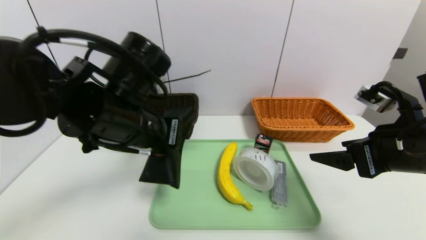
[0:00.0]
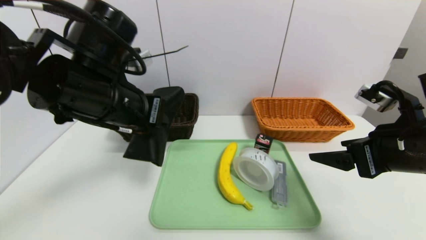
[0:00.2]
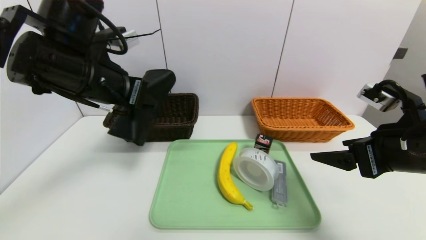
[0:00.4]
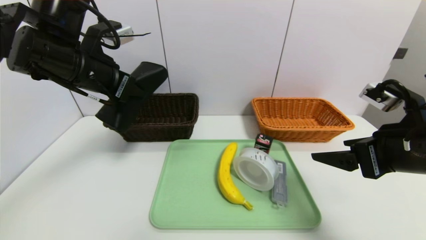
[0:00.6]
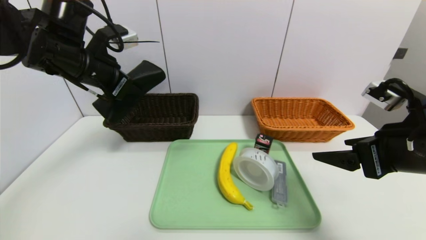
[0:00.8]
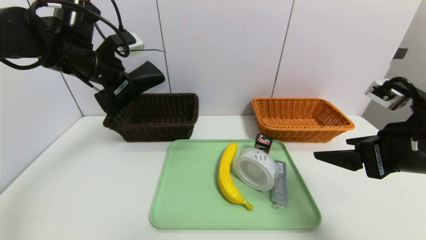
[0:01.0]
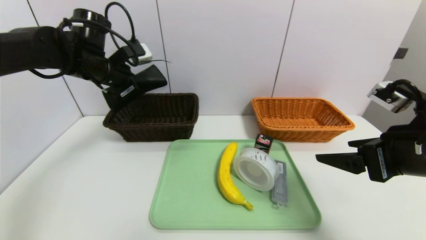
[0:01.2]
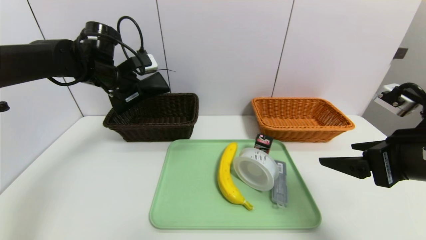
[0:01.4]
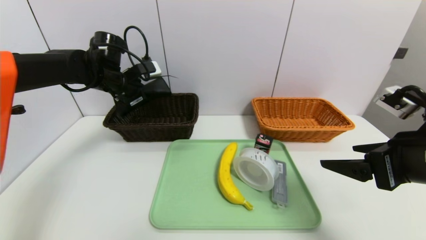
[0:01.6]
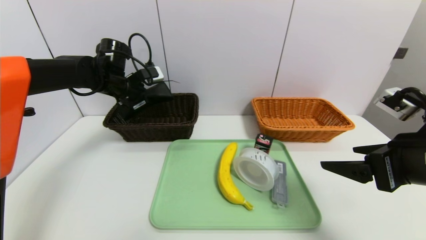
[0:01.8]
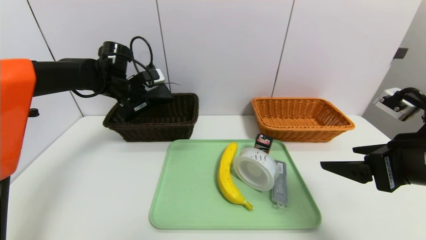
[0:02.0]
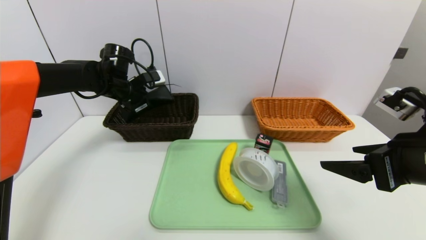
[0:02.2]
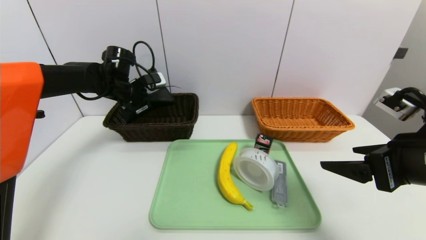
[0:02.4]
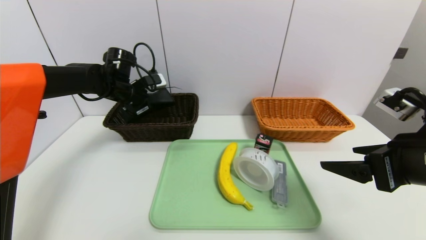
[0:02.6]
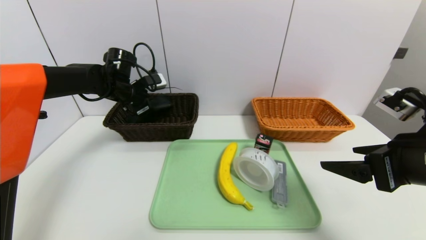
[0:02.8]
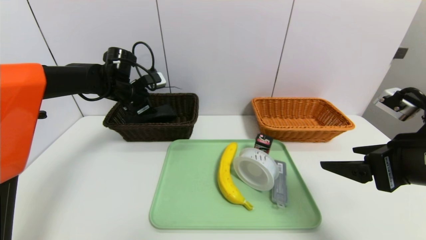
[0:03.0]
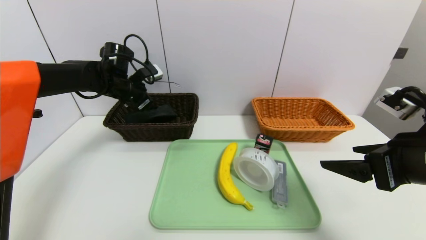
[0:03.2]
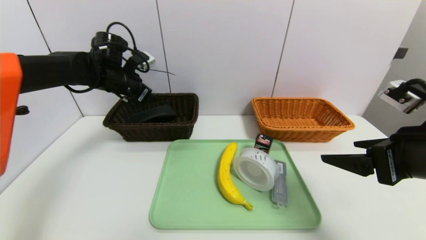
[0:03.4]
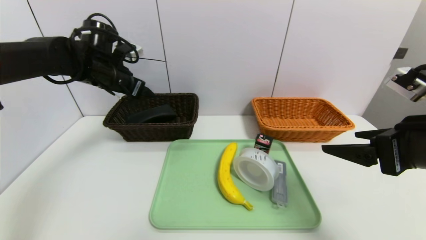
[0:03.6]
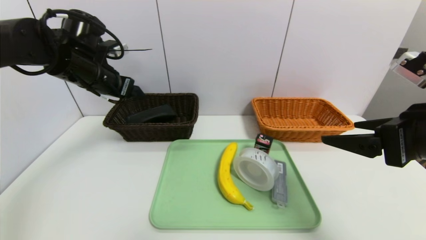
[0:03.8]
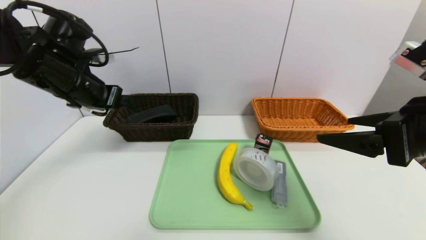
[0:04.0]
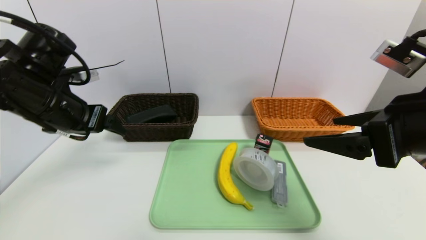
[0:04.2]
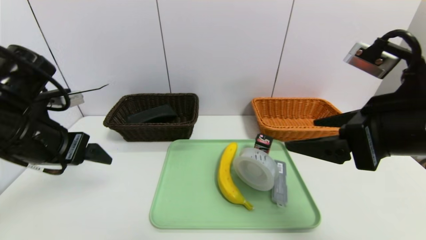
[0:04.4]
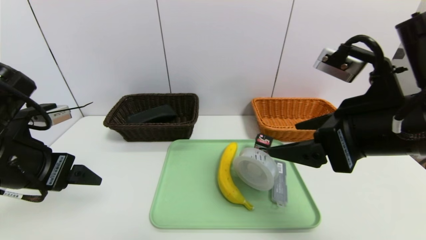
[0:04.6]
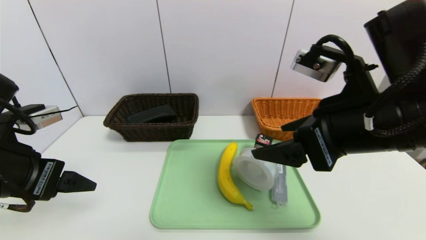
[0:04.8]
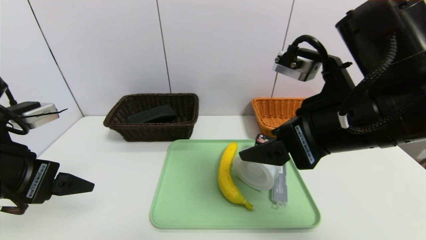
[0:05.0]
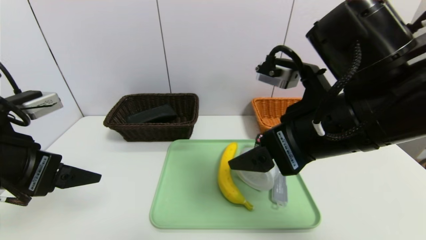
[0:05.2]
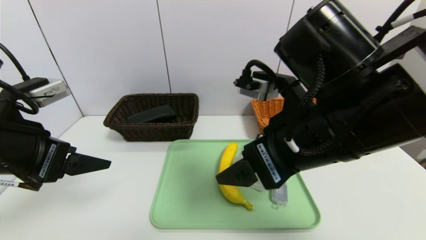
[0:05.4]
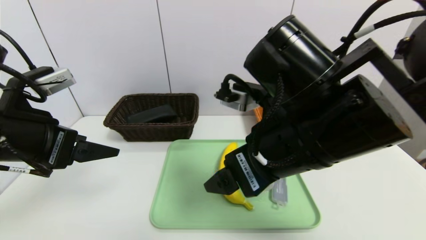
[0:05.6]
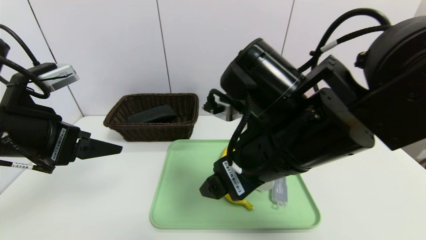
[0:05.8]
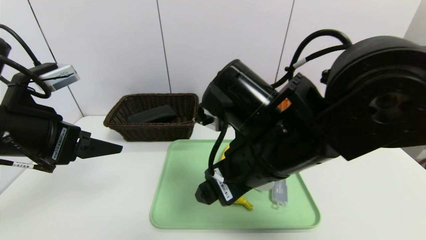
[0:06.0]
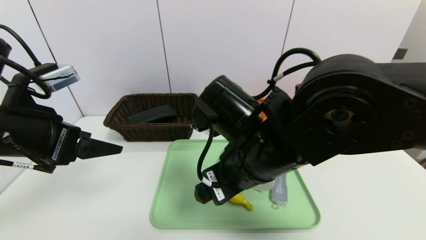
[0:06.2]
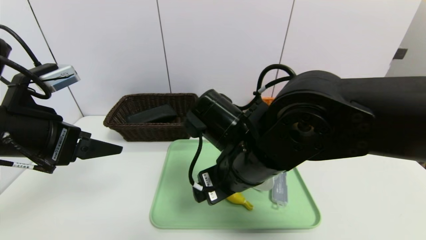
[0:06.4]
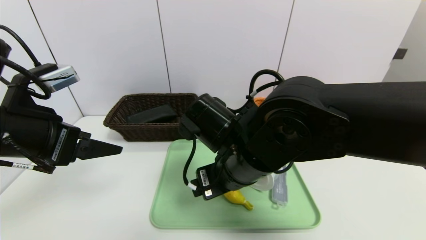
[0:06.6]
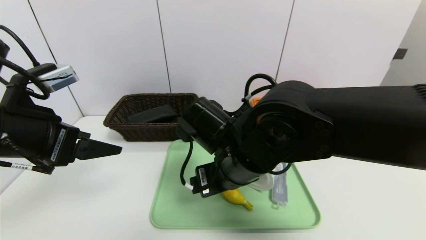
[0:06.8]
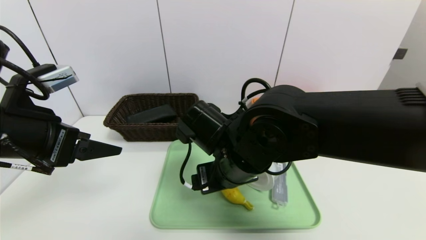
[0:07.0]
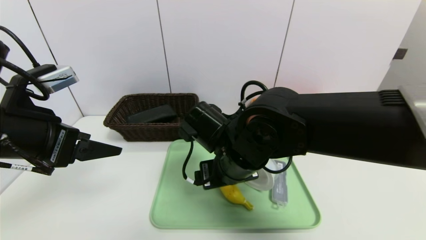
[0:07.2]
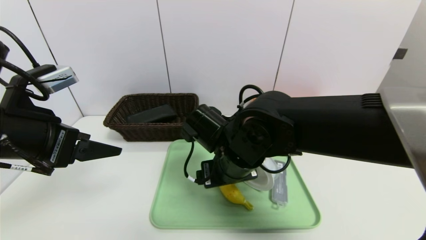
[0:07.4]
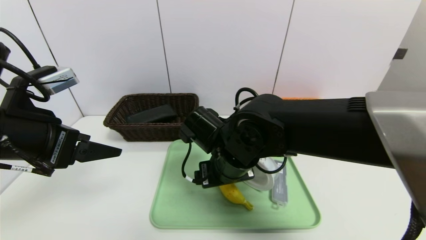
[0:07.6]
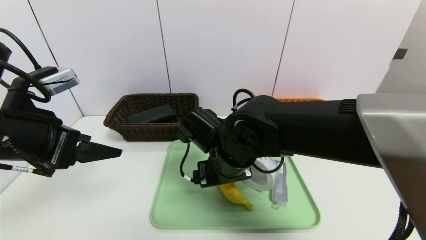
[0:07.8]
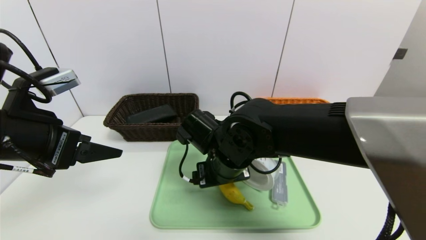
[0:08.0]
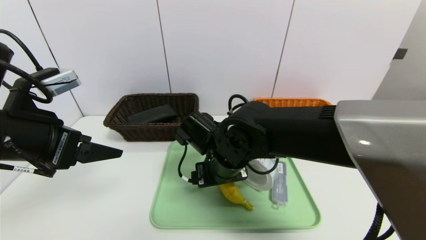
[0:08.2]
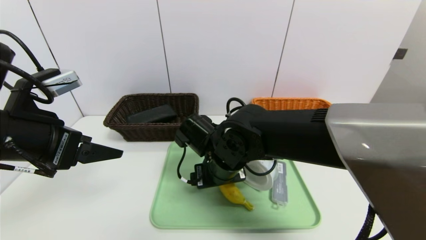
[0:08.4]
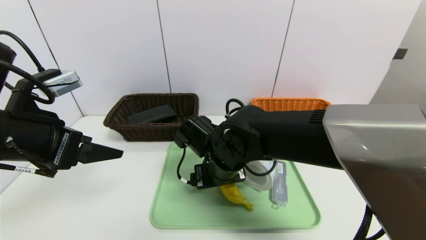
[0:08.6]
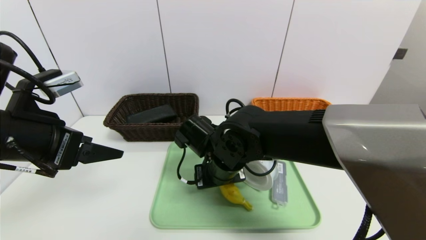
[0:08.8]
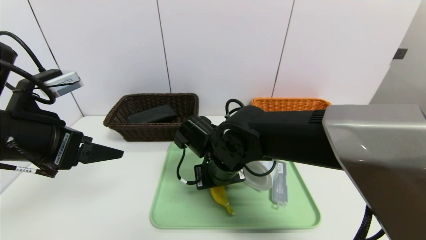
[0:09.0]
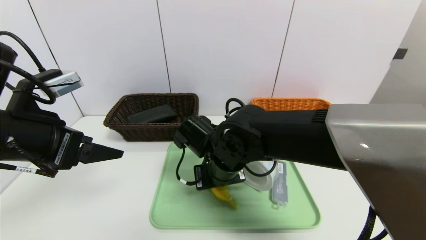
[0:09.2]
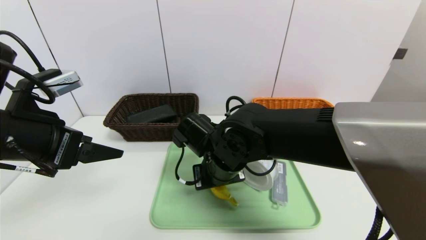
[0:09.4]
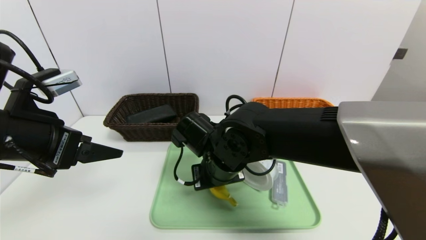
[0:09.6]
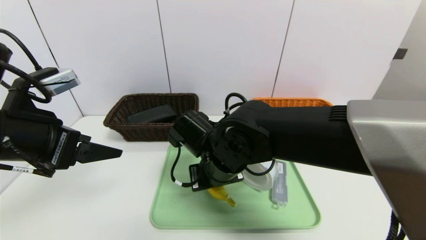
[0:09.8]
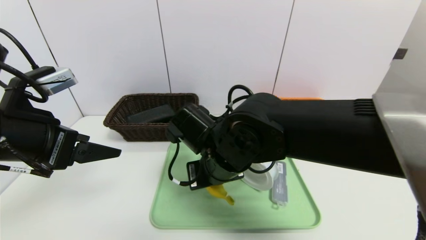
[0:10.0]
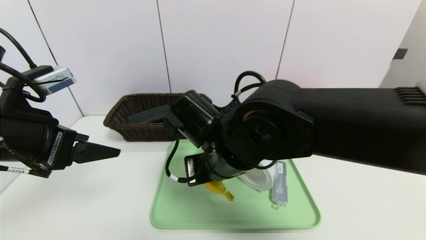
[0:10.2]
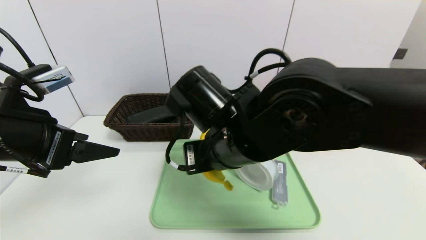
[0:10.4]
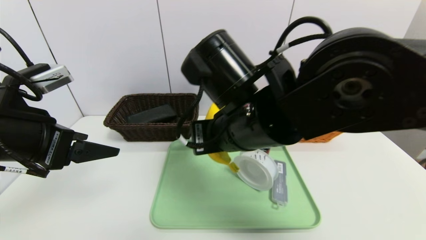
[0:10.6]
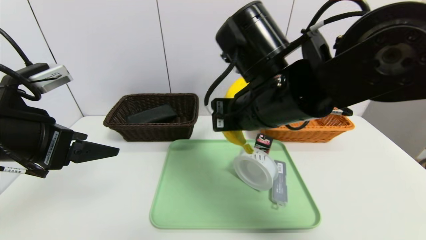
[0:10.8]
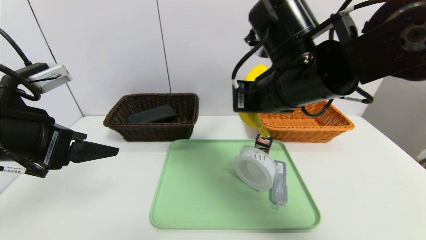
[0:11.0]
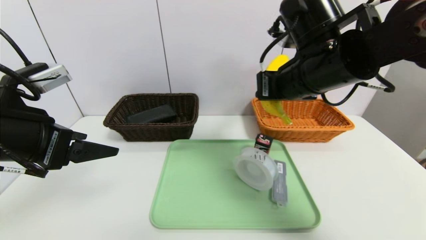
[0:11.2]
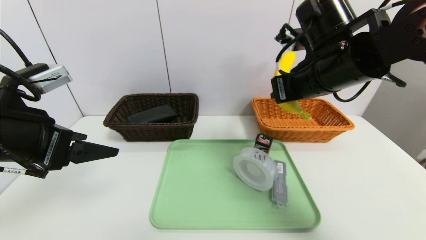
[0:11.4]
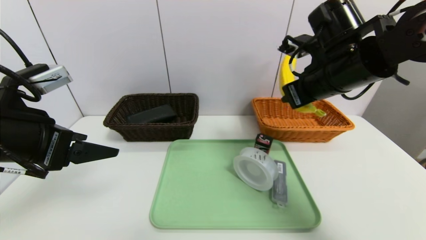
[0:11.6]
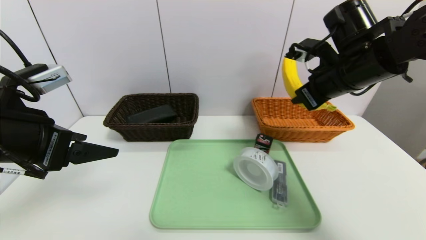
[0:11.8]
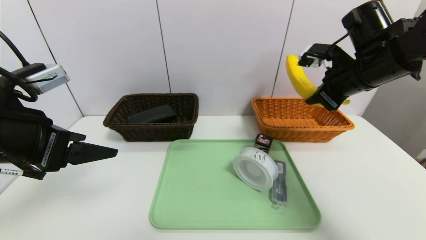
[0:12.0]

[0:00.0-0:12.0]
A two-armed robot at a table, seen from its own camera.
Task of the whole recording: place the food in the right basket with the right gripper, and place the non food items in the left basket with the left gripper.
Step, 0:00.0 to 0:03.2: Grasp the glasses case and put it in the left basket.
0:00.0 to 0:01.6: The left gripper travels forward and to the left by about 25 cm.
0:01.6 to 0:03.0: The left gripper opens.
0:03.0 to 0:04.4: The left gripper is displaced backward by about 25 cm, while the right gripper heads to the left and upward, covering about 10 cm.
0:04.4 to 0:06.0: The right gripper moves to the left, roughly 15 cm.
0:06.0 to 0:07.6: The right gripper moves downward and forward, roughly 10 cm.
0:07.6 to 0:09.0: The right gripper closes its fingers.
0:09.0 to 0:10.4: The right gripper is displaced upward and backward by approximately 10 cm.
0:10.4 to 0:12.0: The right gripper shifts about 25 cm to the right and forward.

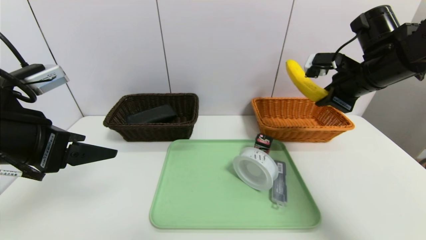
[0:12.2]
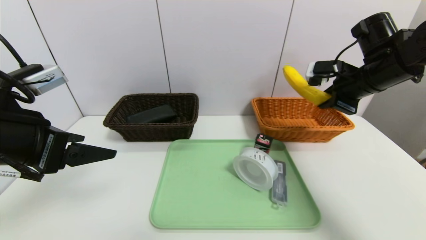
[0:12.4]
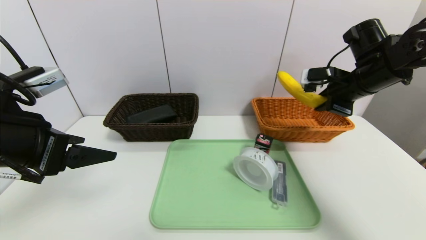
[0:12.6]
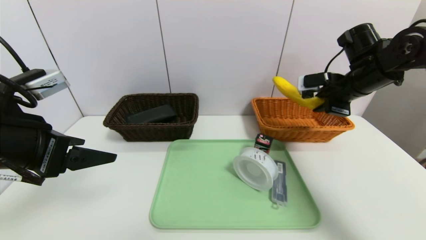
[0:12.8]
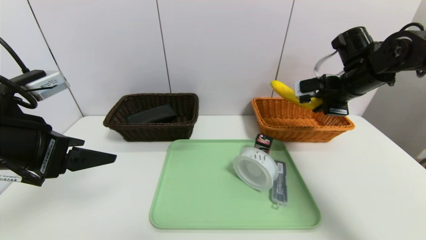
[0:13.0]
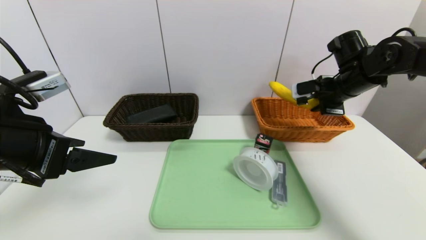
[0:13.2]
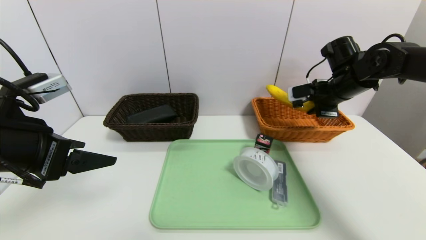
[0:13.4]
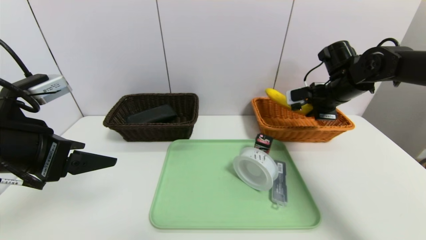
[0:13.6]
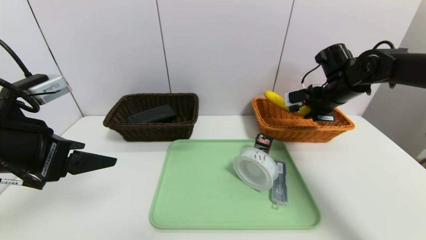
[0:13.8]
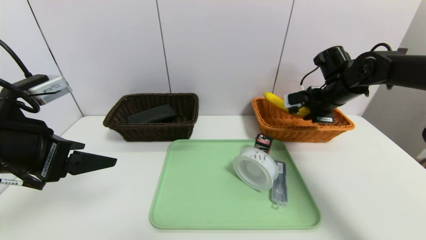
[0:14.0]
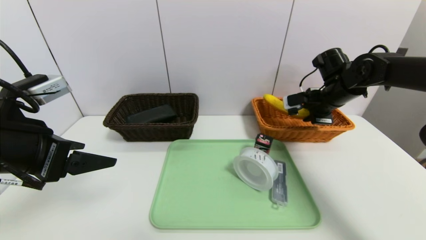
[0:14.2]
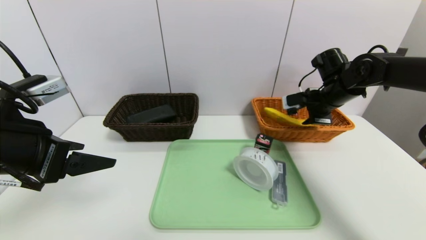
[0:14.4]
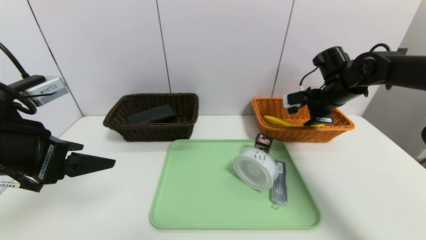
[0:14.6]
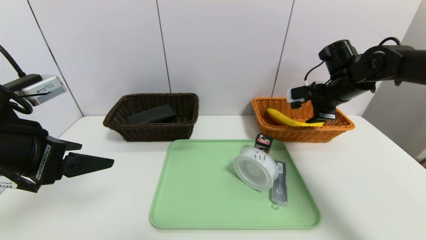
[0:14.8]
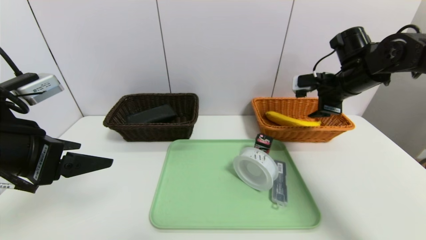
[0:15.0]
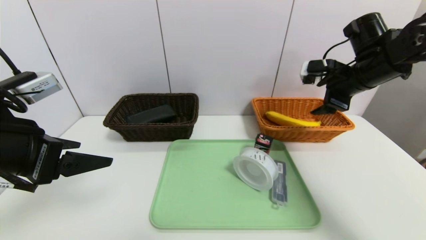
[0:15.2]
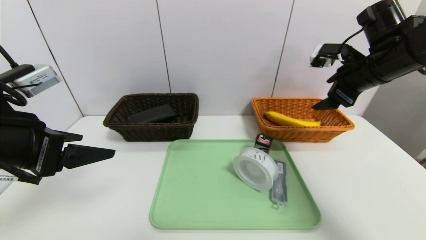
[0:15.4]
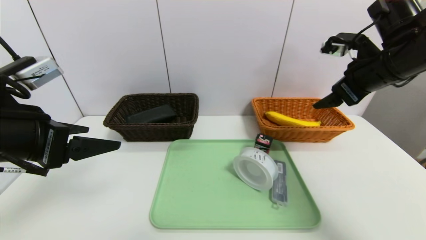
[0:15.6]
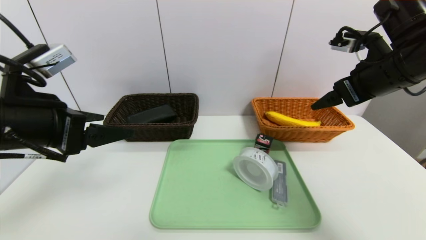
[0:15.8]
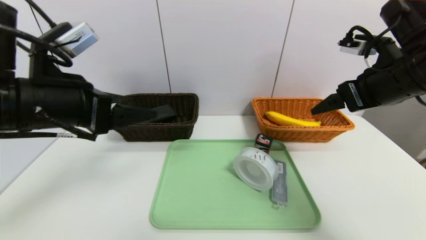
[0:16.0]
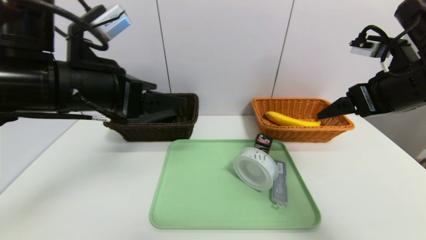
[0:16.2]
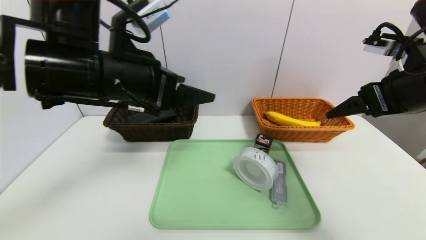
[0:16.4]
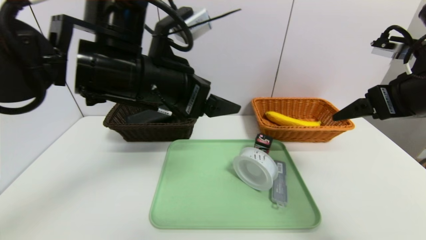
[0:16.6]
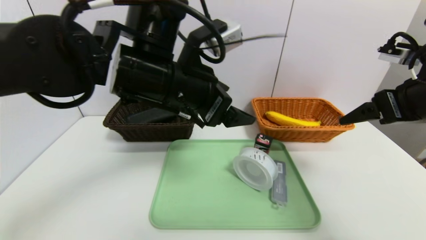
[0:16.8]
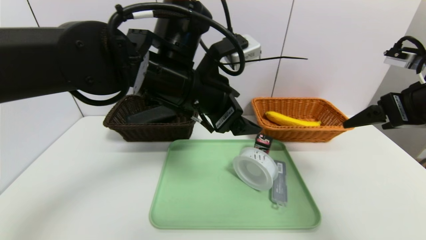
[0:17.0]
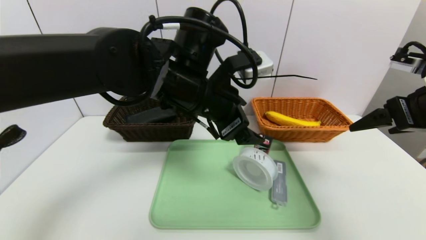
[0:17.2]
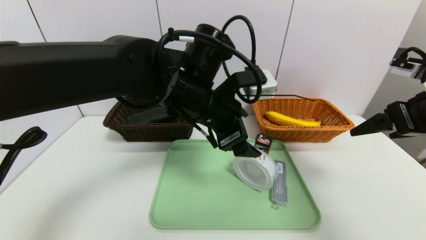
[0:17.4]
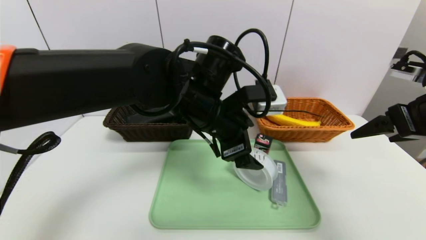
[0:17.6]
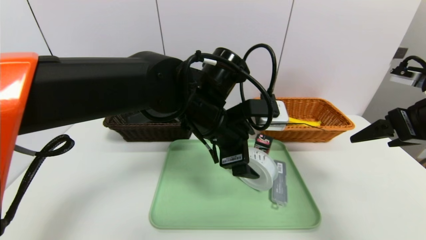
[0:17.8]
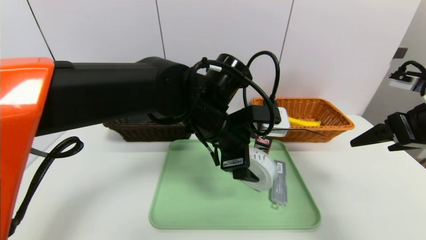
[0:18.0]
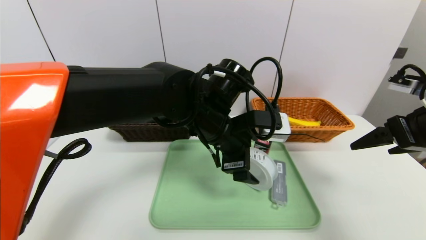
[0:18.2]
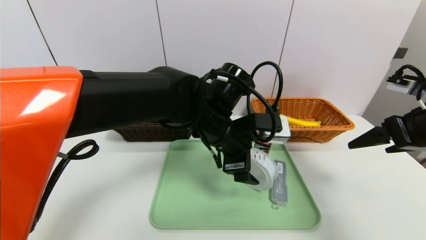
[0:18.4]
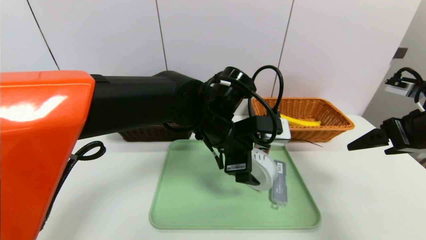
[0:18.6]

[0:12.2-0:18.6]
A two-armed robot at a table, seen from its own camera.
Task of the whole recording: place the food in the right basket with the right gripper, and place the non food items in the left basket with the left gripper.
Step, 0:12.2 to 0:14.8: Grasp the banana and put it in the right basket.
0:12.2 to 0:13.8: The right gripper heads forward and downward, covering roughly 10 cm.
0:13.8 to 0:15.4: The right gripper shifts about 10 cm upward and backward, and opens up.
0:15.4 to 0:17.0: The left gripper shifts about 25 cm to the right and forward. The right gripper travels backward by approximately 10 cm.
0:17.0 to 0:18.6: The left gripper goes roughly 10 cm downward and to the right.
